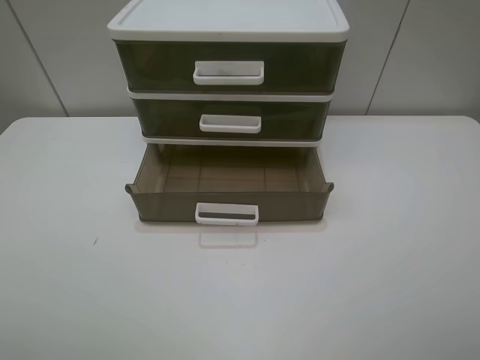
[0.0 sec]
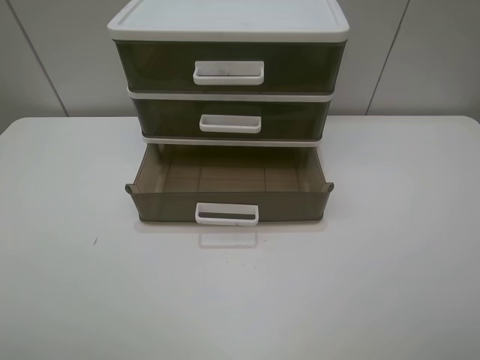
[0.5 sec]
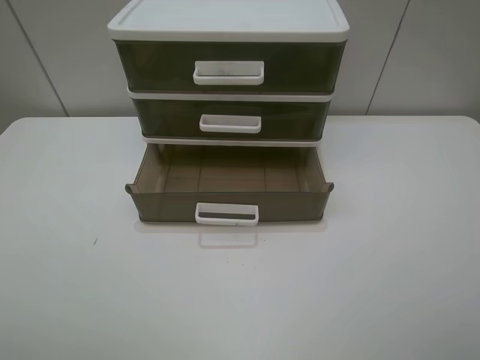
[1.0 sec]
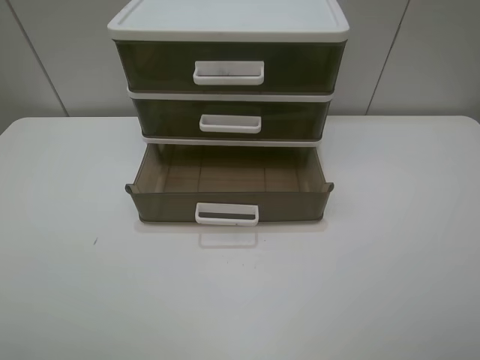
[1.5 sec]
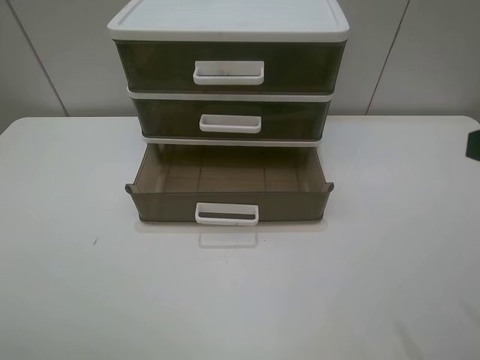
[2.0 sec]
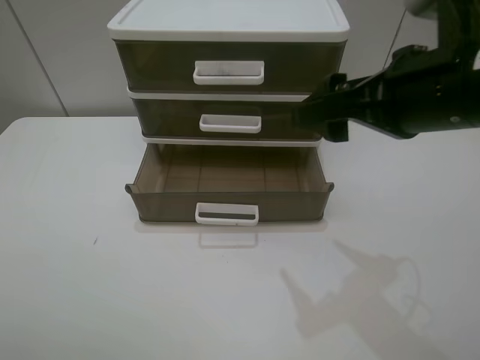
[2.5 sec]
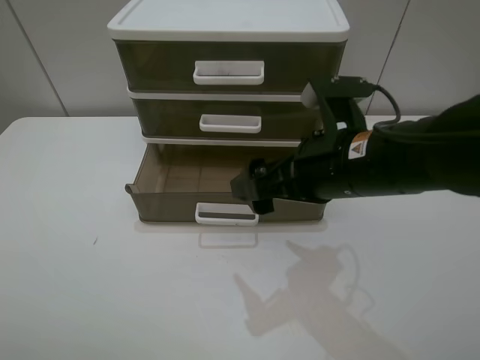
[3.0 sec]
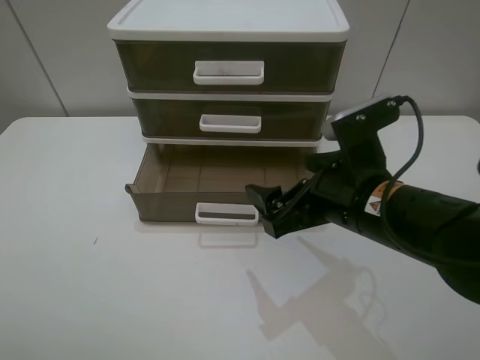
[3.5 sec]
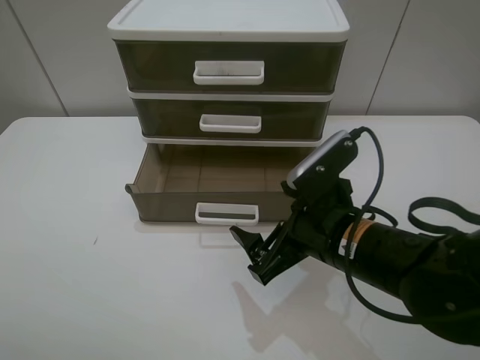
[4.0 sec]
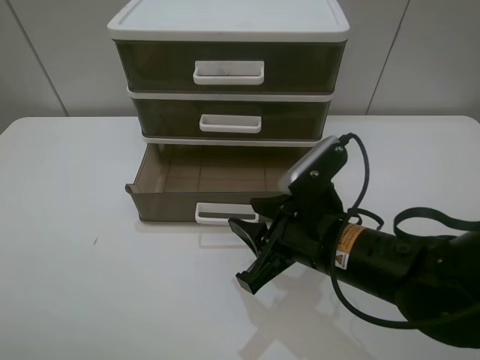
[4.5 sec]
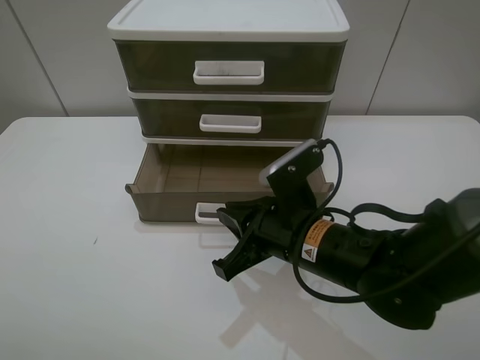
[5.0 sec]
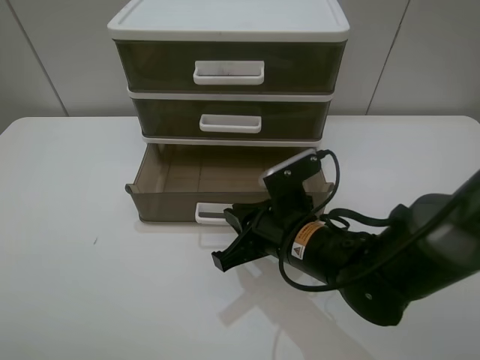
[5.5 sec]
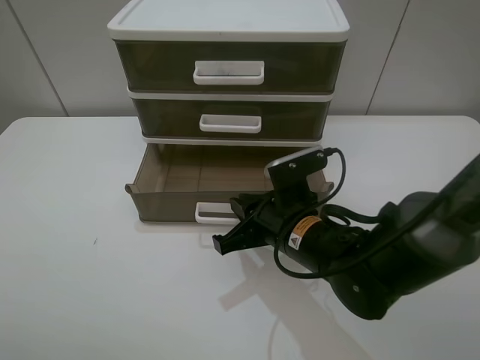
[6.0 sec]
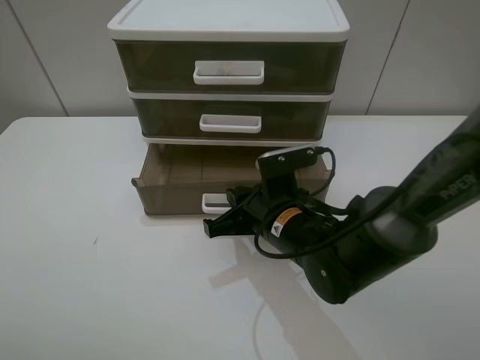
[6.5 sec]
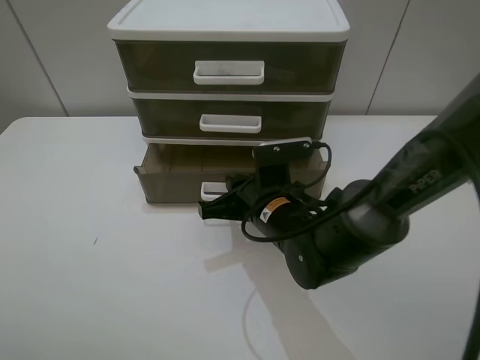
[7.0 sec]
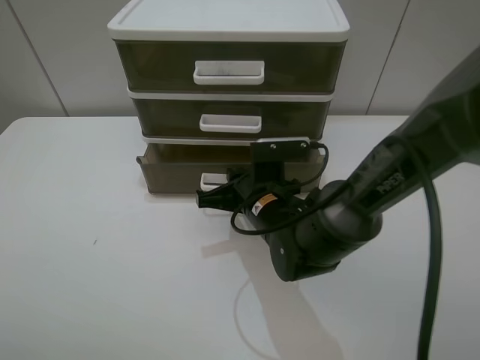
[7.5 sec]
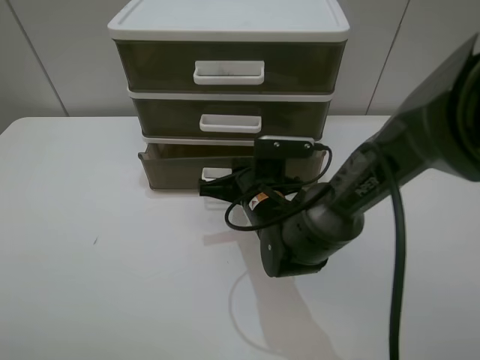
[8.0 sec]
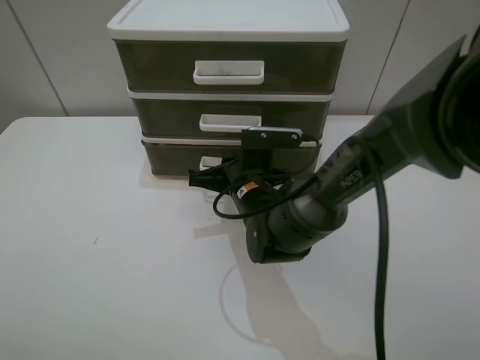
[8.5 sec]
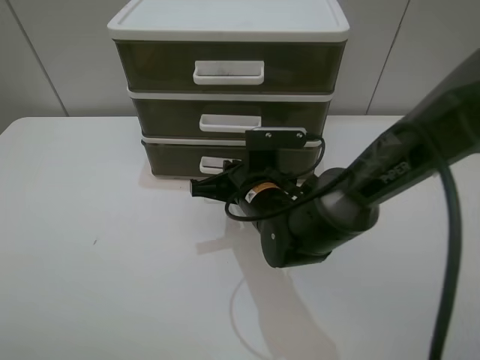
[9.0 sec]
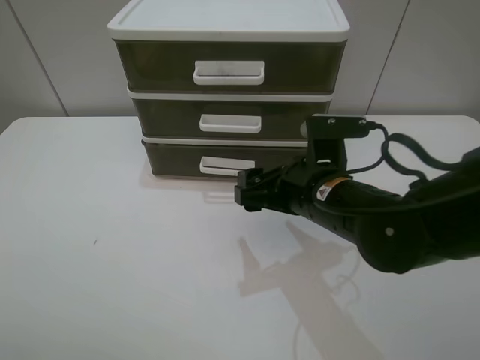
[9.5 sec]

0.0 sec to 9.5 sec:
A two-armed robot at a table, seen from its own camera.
Task of the whole recording: close the bottom drawer.
Step, 0.0 sec to 6.0 sec: Use the right gripper to contact the bottom layer of the storage cabinet.
Step, 6.5 sec to 8.0 sec: Push the bottom drawer closed.
2.0 sec to 4.0 sec: The right gripper shifts some 25 cm downward and to the left.
4.0 sec to 5.5 sec: The right gripper shifts by about 5 cm, and closes.
5.5 sec to 7.5 sec: The right gripper goes about 5 cm forward.
7.5 sec to 9.5 sec: The right gripper moves upward and to the right, about 10 cm, and opens.

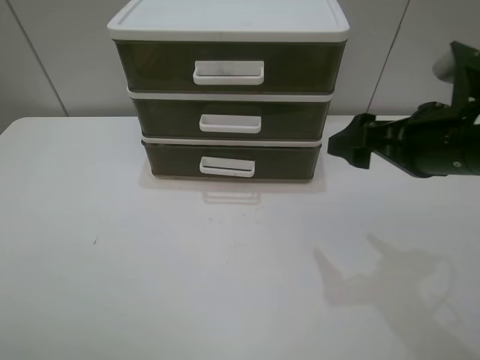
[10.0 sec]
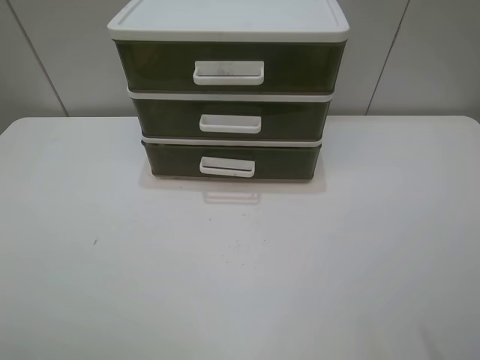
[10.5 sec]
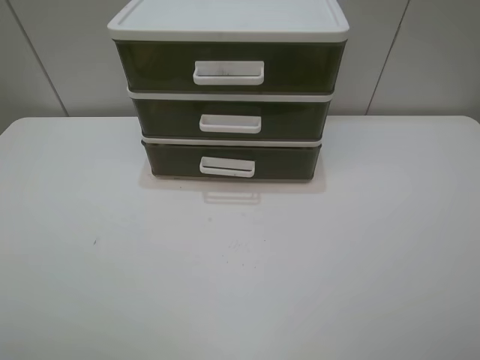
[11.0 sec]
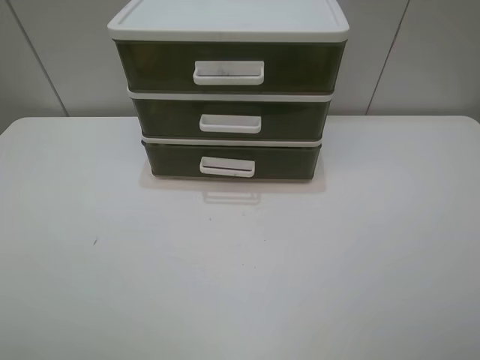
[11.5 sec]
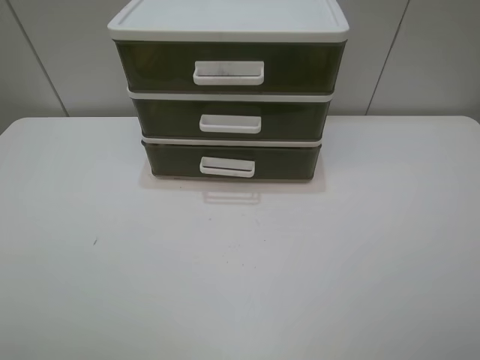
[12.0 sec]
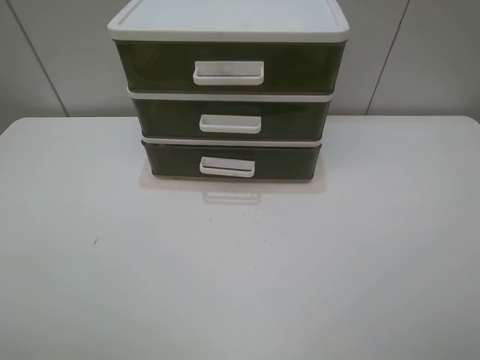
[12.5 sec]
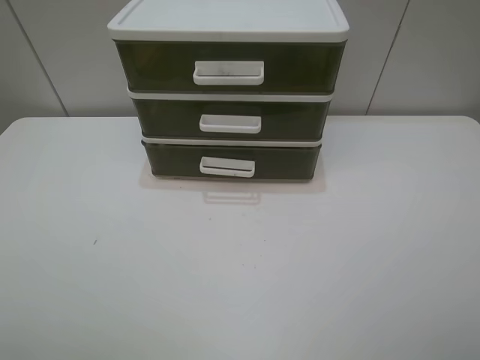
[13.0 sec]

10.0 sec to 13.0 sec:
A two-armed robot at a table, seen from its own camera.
Task of the whole recording: close the bottom drawer.
10.0 sec to 11.5 sec: The right gripper heads backward, covering some 20 cm.

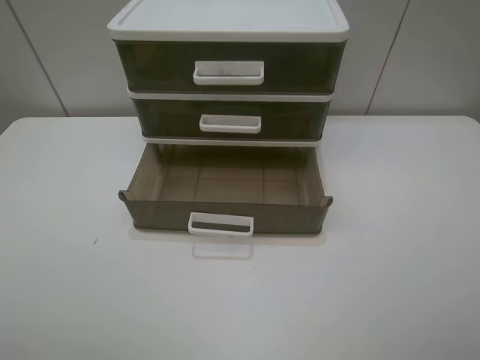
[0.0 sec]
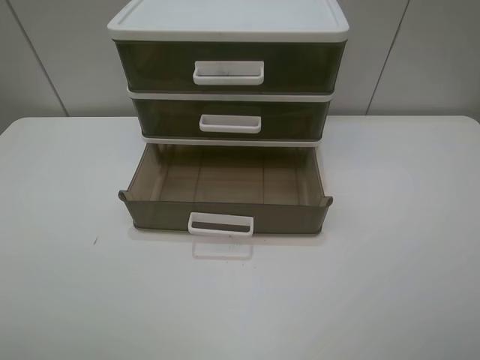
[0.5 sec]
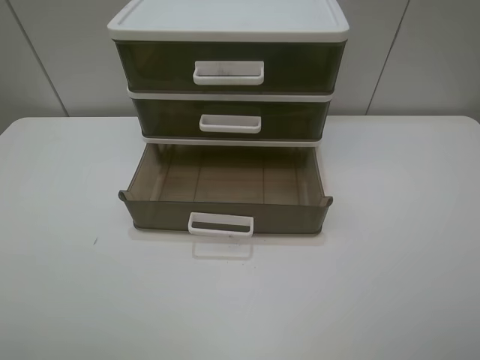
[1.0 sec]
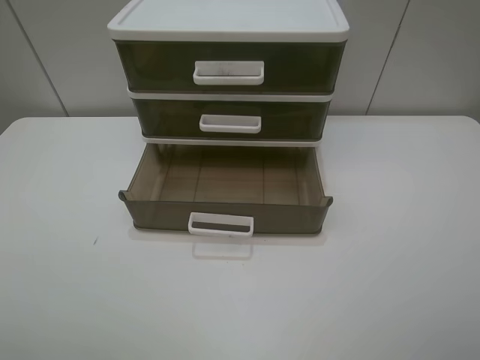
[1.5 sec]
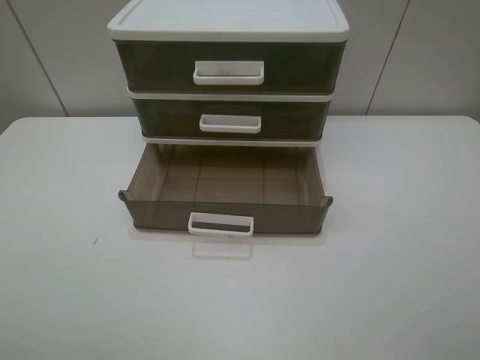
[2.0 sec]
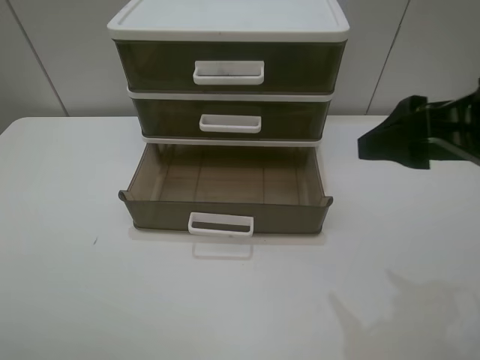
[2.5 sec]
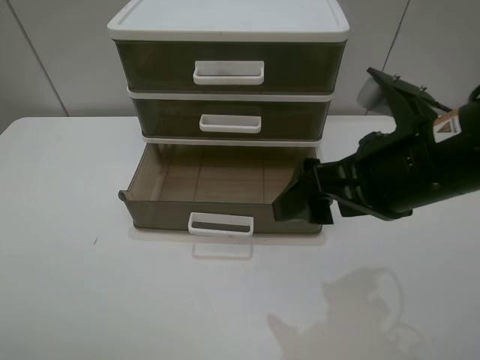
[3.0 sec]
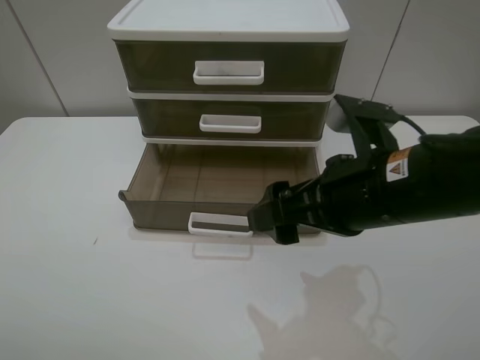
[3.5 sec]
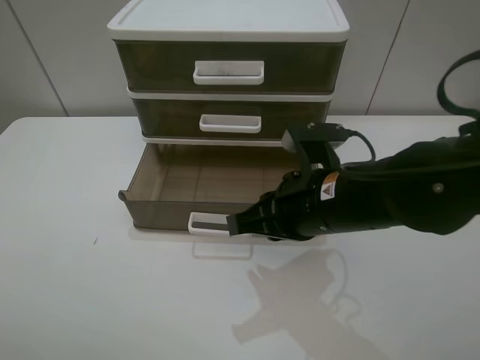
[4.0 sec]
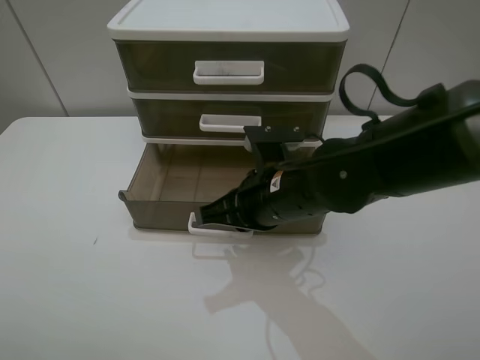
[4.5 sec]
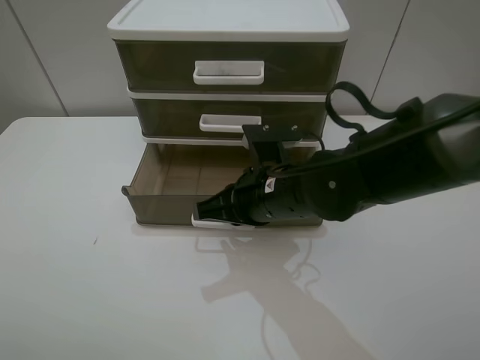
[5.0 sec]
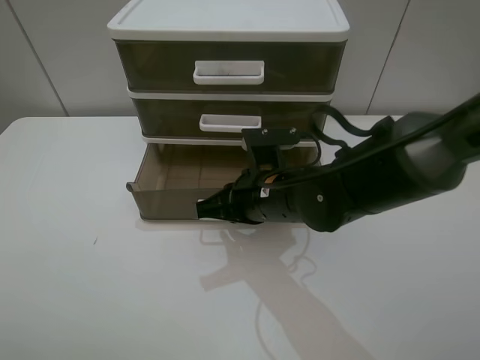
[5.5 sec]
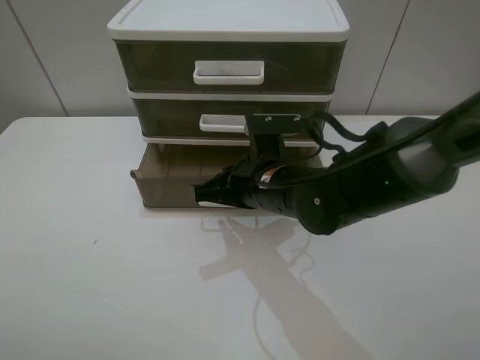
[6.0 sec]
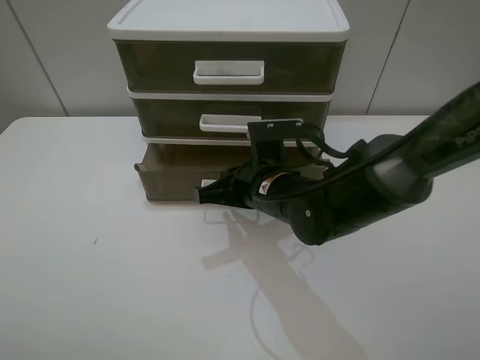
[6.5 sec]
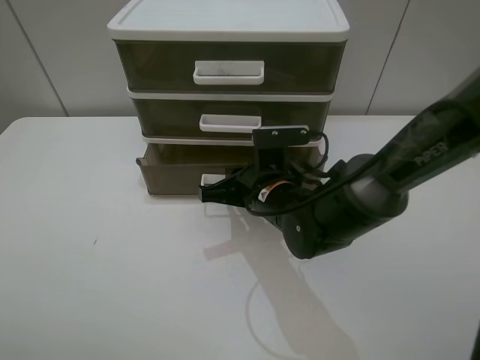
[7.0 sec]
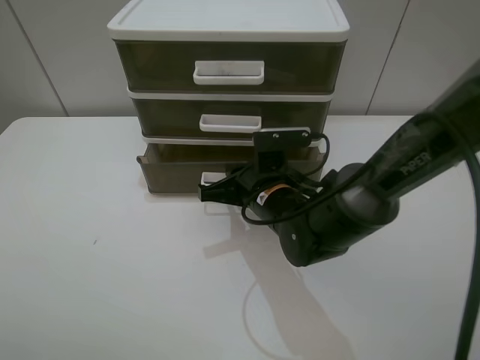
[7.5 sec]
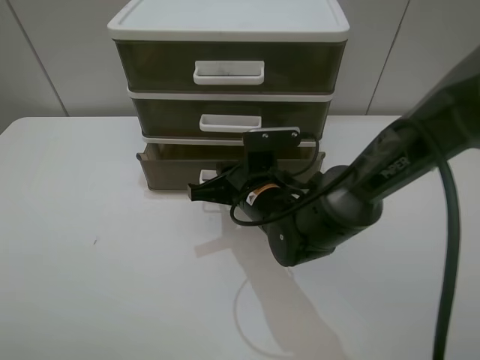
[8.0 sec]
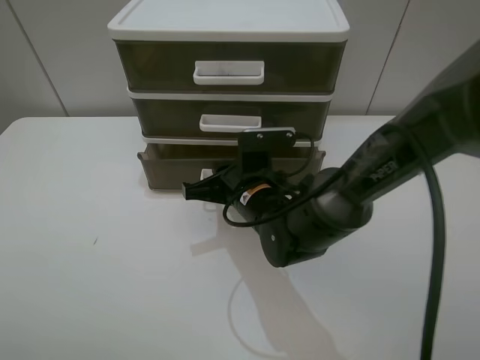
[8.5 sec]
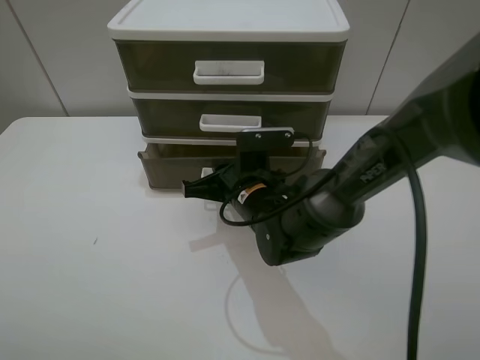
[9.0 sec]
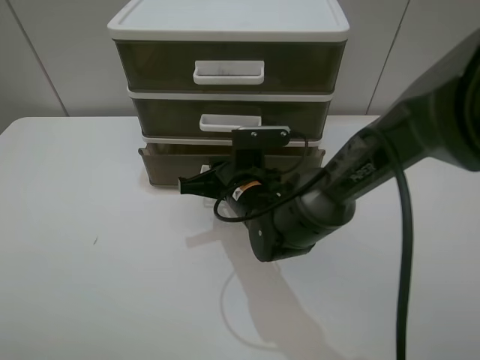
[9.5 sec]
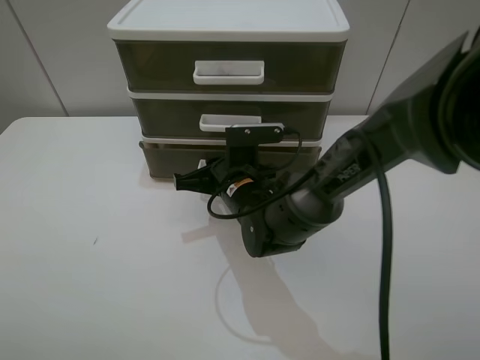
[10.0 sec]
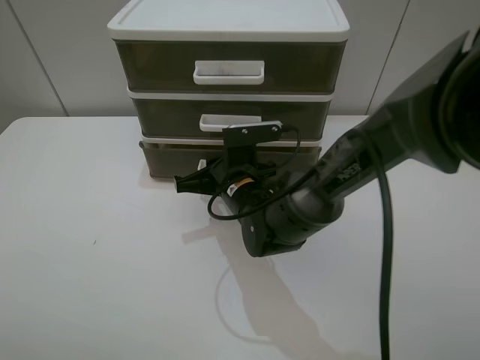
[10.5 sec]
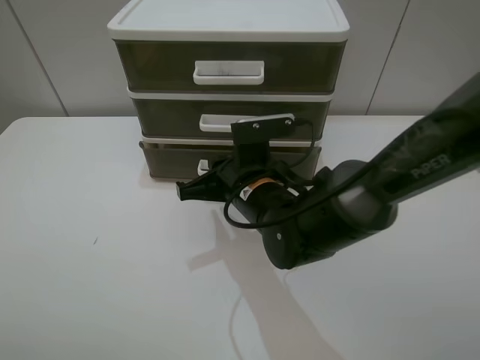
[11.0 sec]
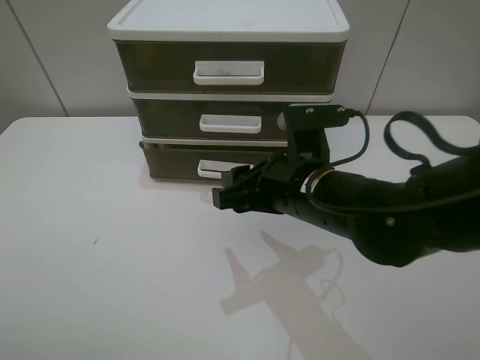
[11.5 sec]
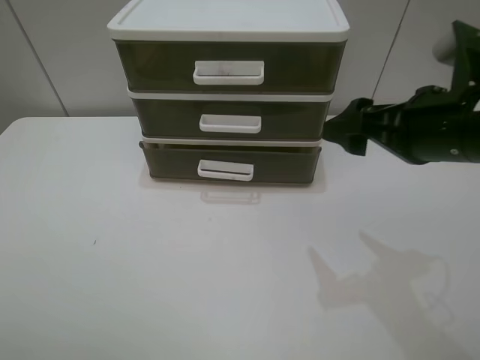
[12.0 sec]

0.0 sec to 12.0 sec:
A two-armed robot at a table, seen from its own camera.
Task of the whole recording: close the bottom drawer.
Step, 0.0 sec to 4.5 sec: Use the right gripper to contact the bottom layer of the storage cabinet.
Step, 5.0 sec to 10.0 sec: Push the bottom drawer closed.
2.0 sec to 4.0 sec: The right gripper moves to the left, downward and forward, about 25 cm, and closes.
4.0 sec to 6.0 sec: The right gripper is displaced forward by some 5 cm.
6.0 sec to 8.0 sec: The grippers make only small movements.
8.0 sec to 10.0 sec: The grippers move only a little.
10.0 sec to 12.0 sec: The right gripper shifts roughly 30 cm to the right and upward, and opens up.

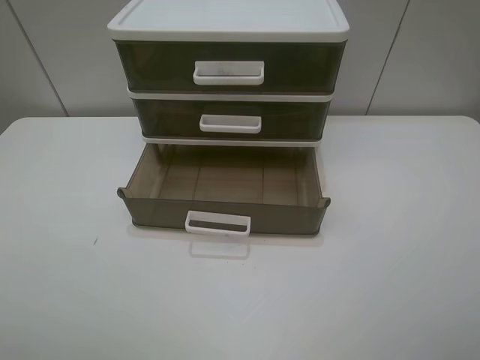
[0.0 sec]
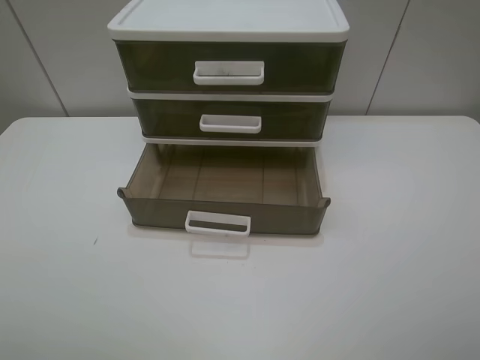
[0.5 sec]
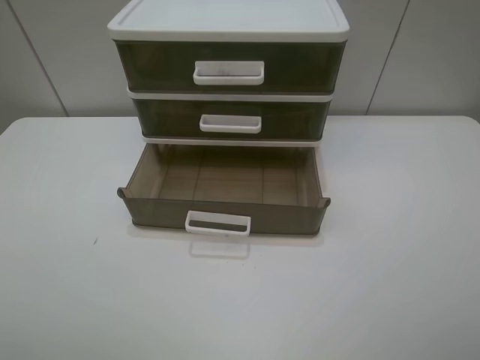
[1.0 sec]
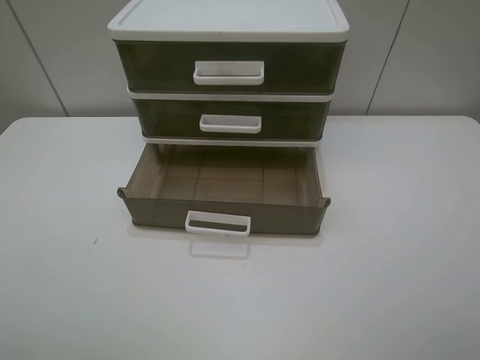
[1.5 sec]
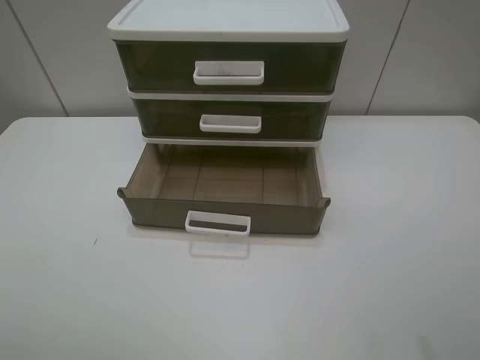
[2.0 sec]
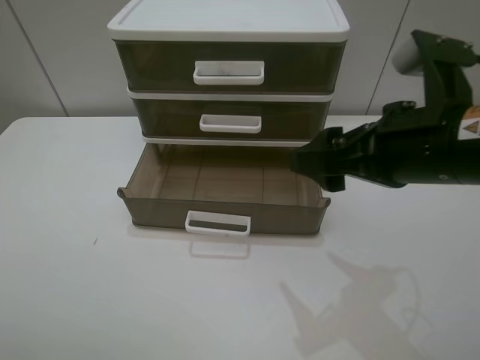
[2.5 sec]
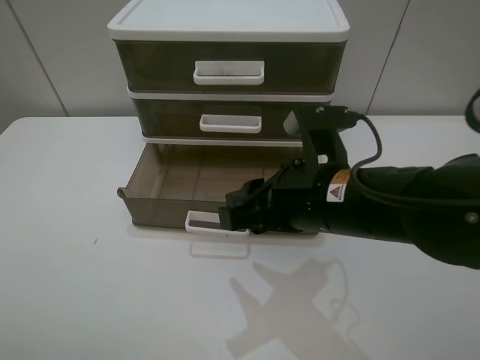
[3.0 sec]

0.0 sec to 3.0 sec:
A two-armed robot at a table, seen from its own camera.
Task of the whole recording: close the bottom drawer.
0.0 sec to 1.5 sec: Both grippers stay put.
1.5 sec to 3.0 sec: The right gripper travels to the left, forward and downward by about 30 cm, and closes its fingers.
